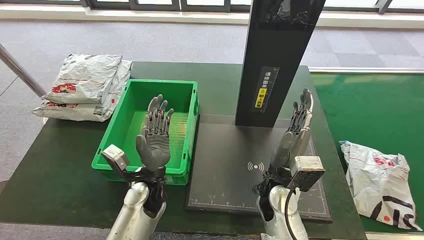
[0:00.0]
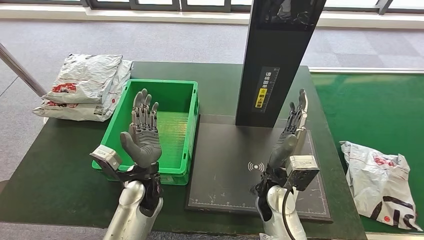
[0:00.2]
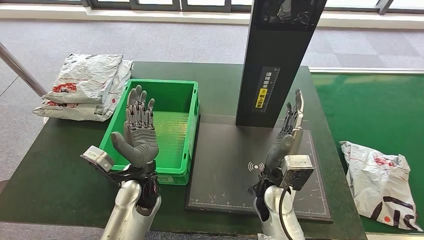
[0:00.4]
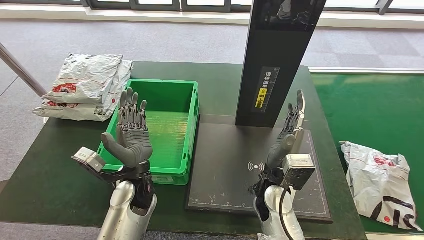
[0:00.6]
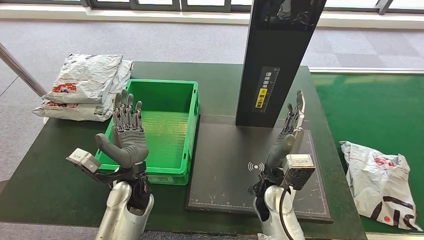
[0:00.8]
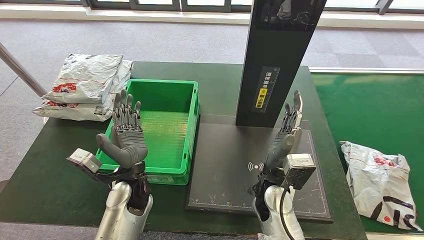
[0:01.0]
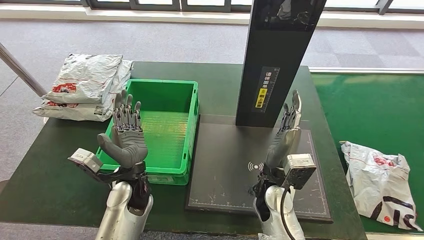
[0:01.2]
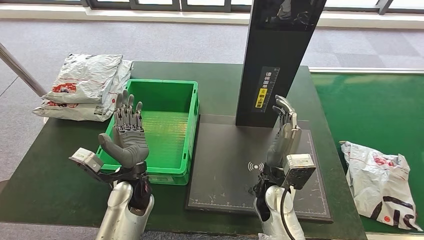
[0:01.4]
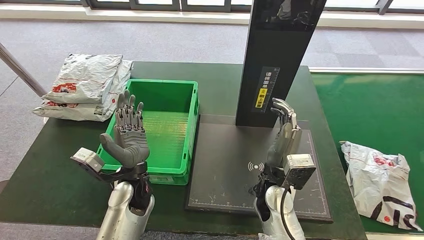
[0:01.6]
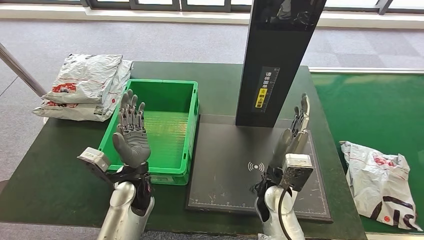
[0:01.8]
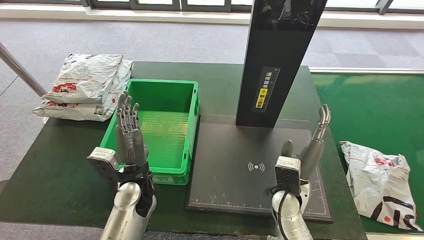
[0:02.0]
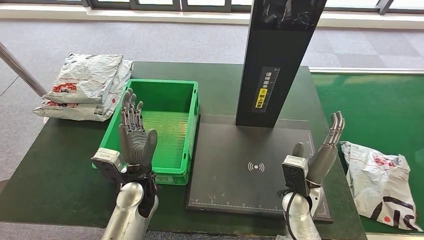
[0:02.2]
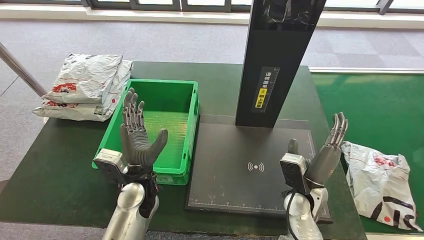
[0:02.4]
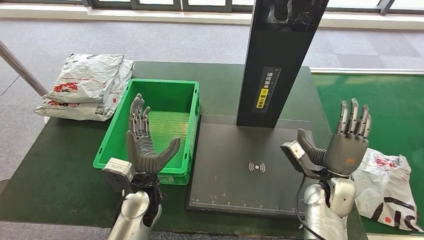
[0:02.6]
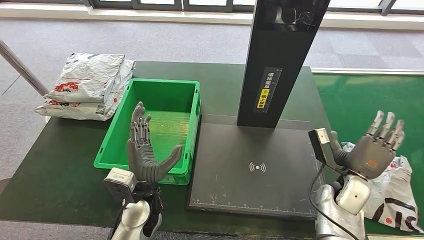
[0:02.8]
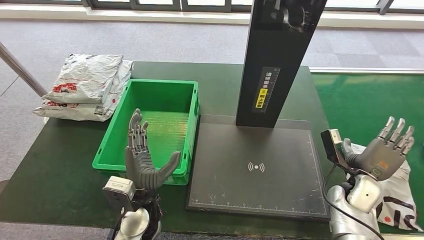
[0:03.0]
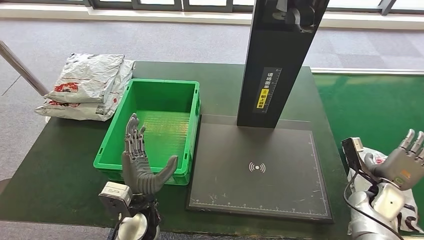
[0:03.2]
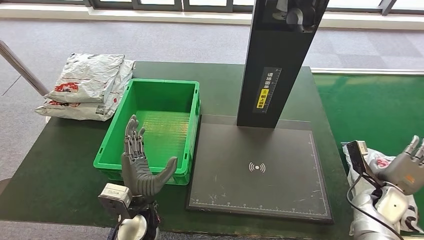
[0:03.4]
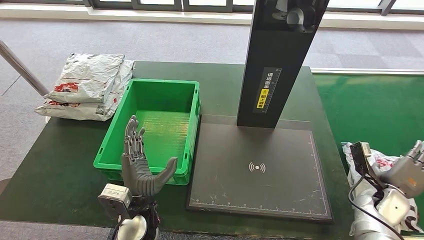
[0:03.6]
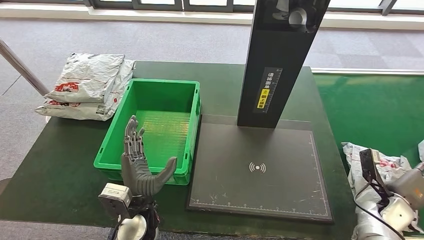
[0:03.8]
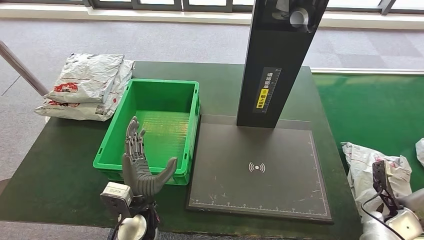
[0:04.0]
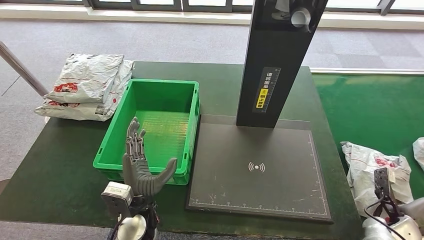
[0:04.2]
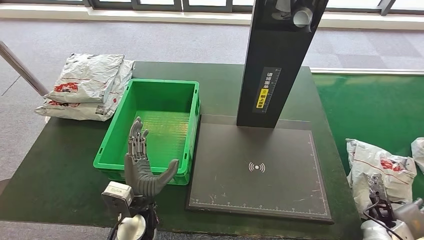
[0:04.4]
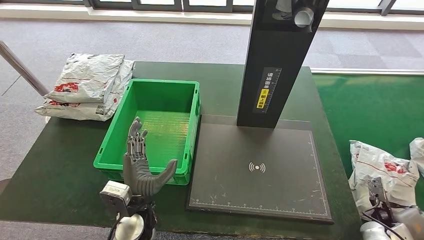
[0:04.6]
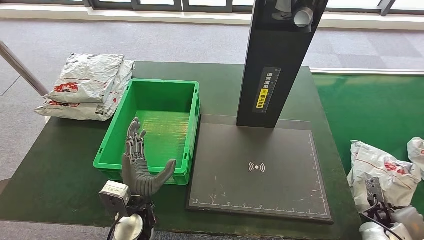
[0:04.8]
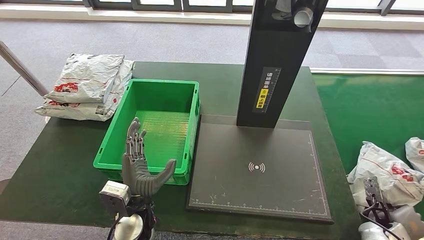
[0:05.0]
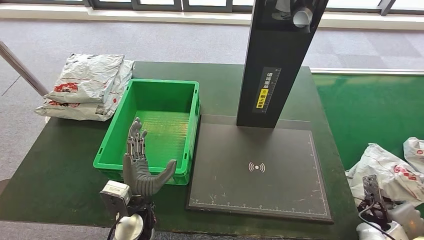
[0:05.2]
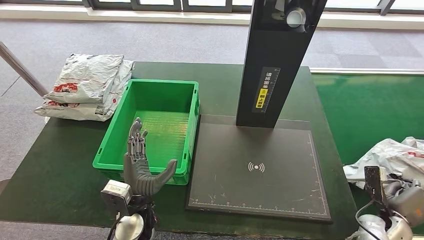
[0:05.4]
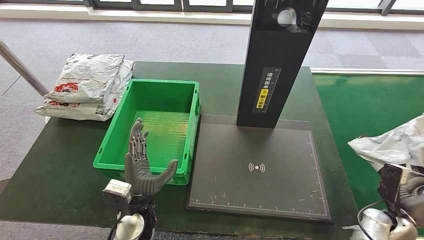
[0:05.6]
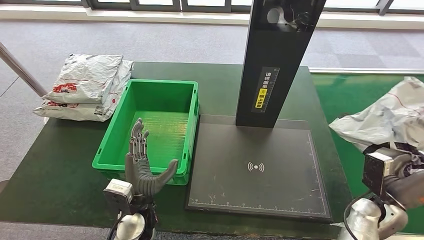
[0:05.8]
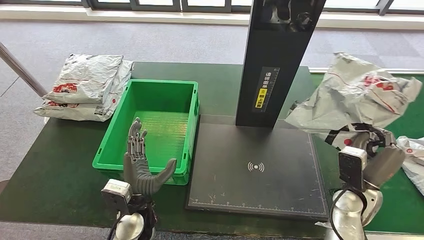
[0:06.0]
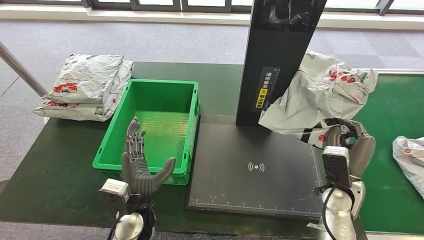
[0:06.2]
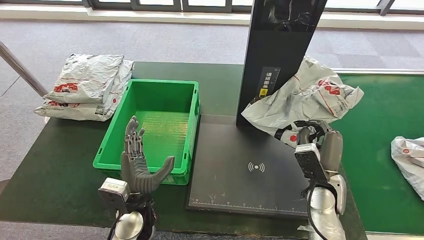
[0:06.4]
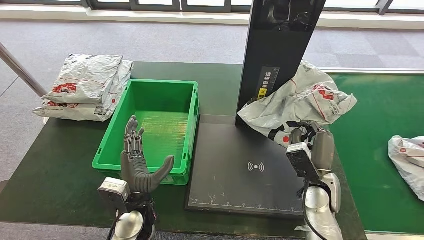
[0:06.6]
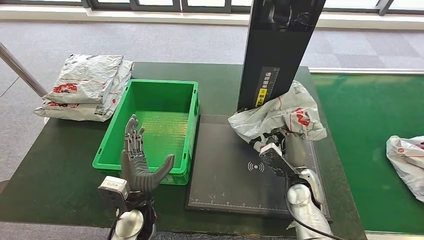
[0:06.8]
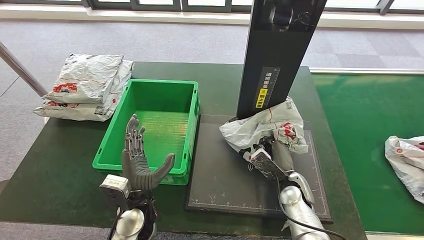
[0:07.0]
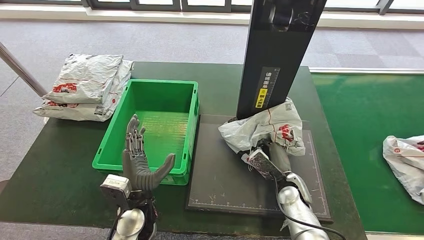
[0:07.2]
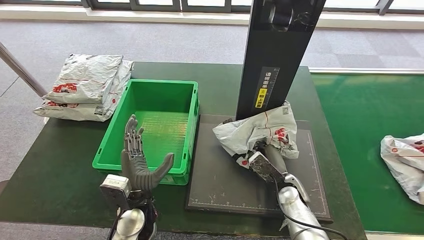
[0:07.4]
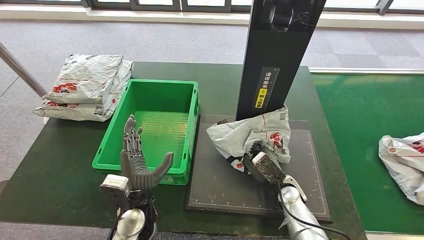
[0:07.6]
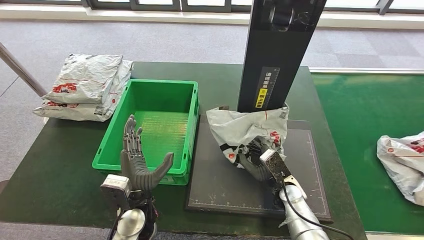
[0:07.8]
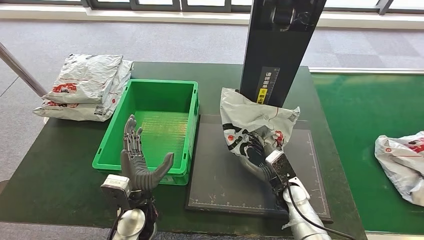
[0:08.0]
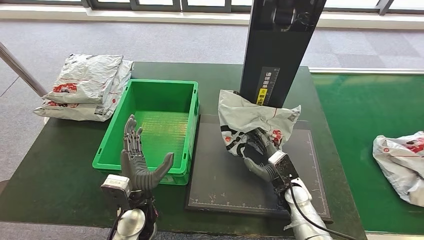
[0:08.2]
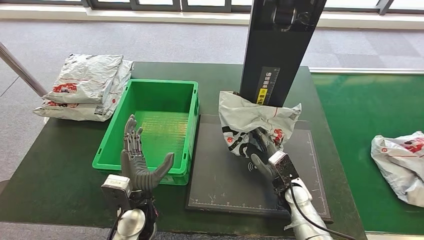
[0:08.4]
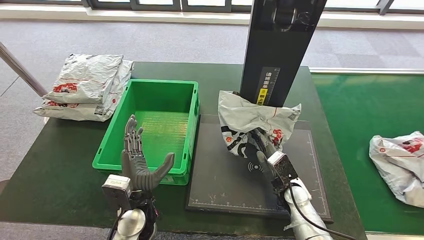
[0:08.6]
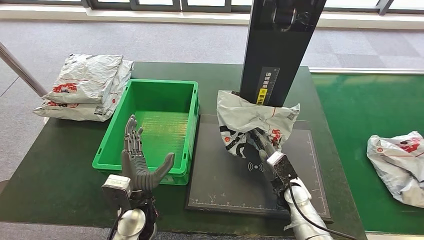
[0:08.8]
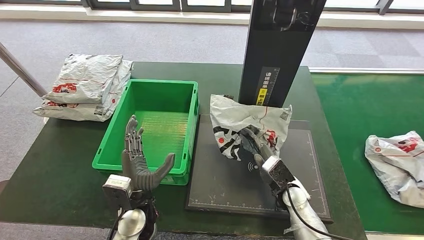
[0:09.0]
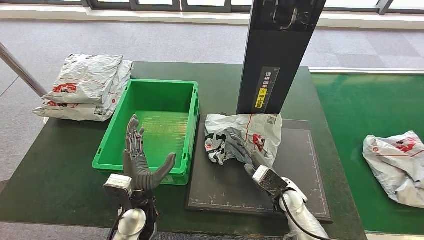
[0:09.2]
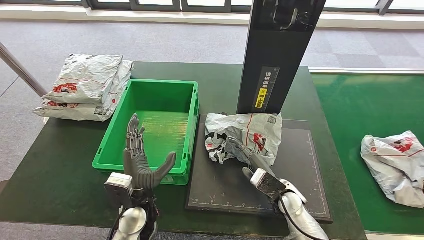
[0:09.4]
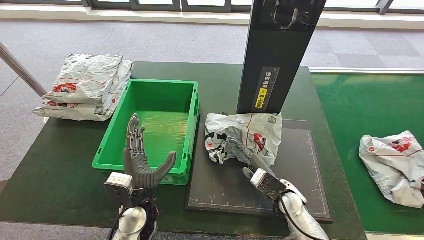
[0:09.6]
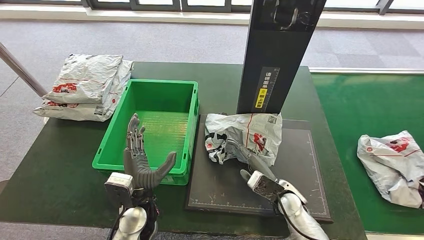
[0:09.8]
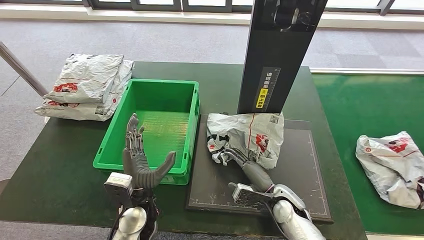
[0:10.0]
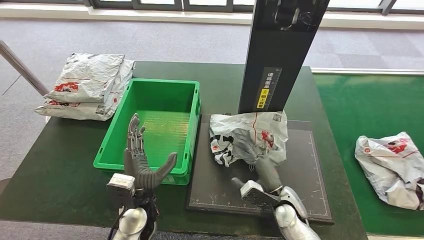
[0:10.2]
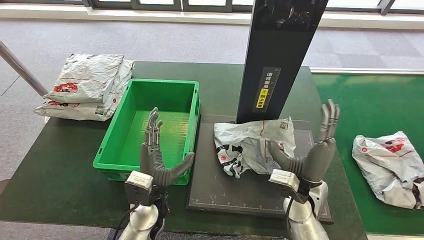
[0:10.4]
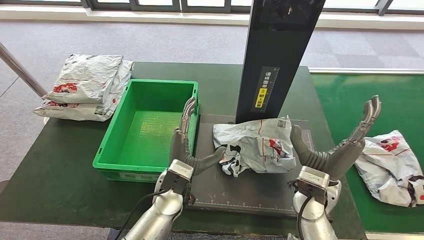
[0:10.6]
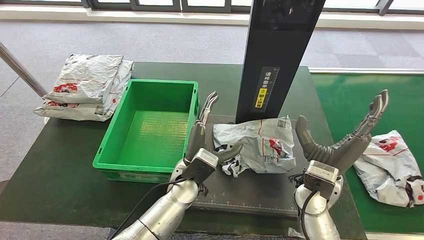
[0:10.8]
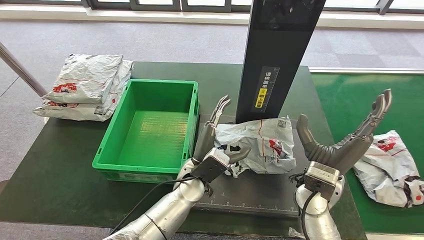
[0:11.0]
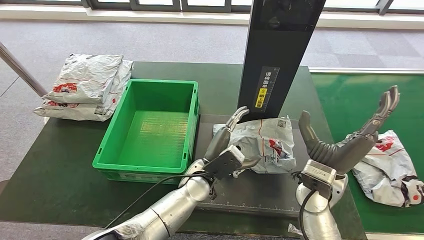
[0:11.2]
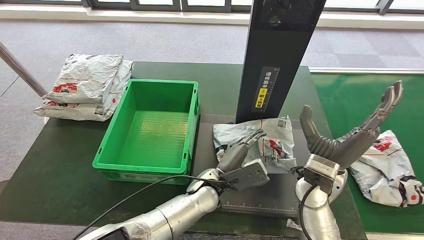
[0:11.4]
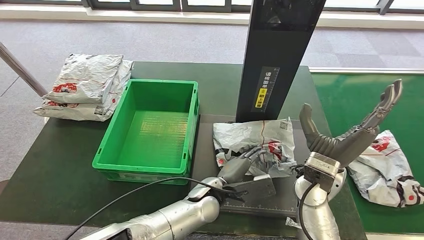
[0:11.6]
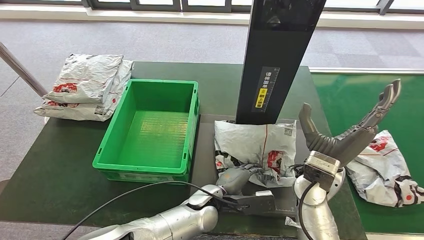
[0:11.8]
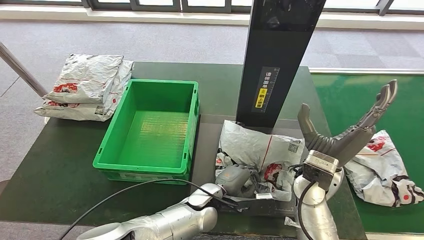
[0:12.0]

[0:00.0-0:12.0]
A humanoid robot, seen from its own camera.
Step, 0:00.0 to 0:06.4: Take the parcel off the conveyor belt.
Step, 0:06.6 to 0:10.4: Place the parcel onto the inbound machine.
0:01.6 to 0:03.0: The right hand is displaced to the right by about 25 cm. The left hand changes place by about 5 cm.
0:03.0 to 0:04.4: The right hand moves to the right, downward and backward, about 15 cm.
0:07.6 to 0:09.0: The hands make only small movements.
0:09.0 to 0:10.4: The right hand is displaced upward by some 5 cm.

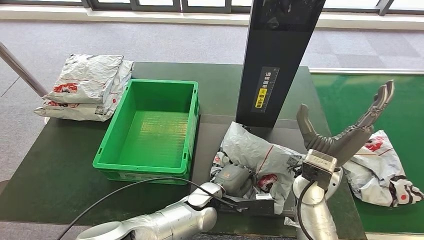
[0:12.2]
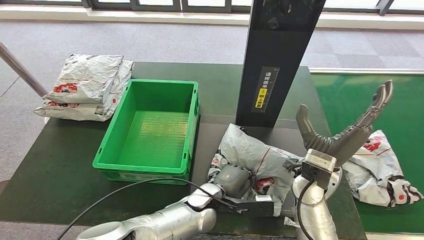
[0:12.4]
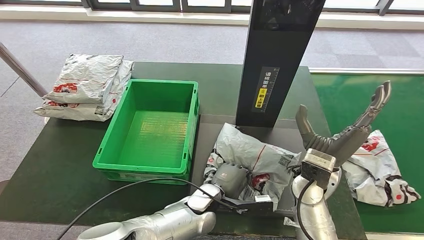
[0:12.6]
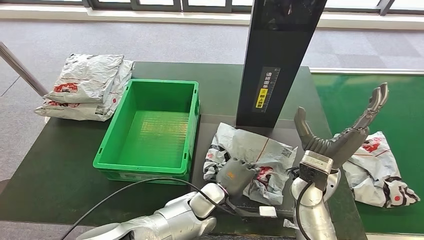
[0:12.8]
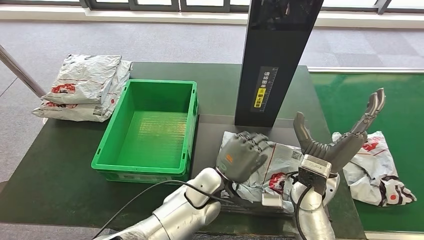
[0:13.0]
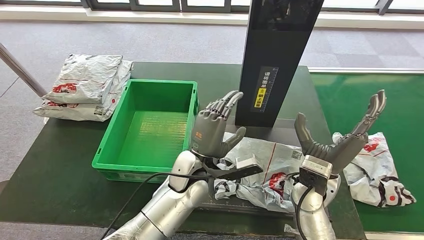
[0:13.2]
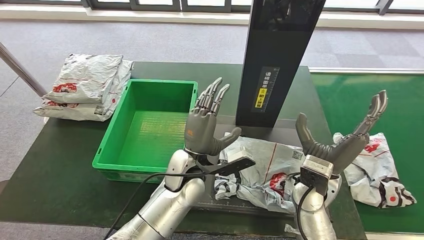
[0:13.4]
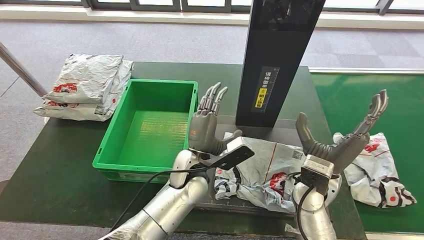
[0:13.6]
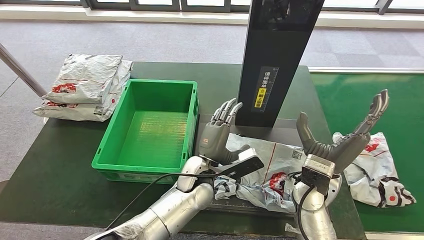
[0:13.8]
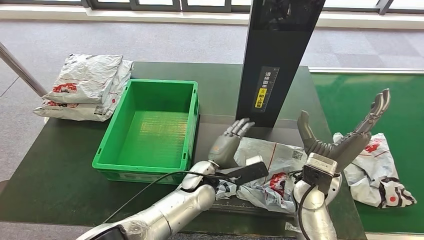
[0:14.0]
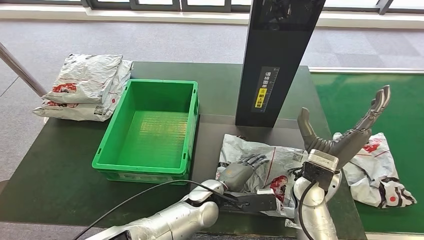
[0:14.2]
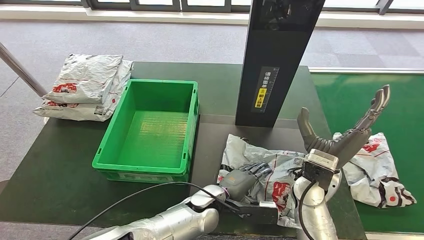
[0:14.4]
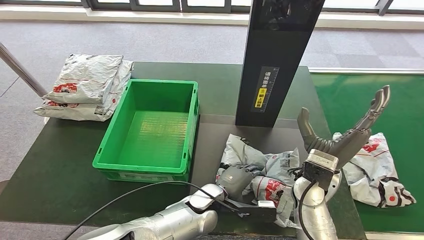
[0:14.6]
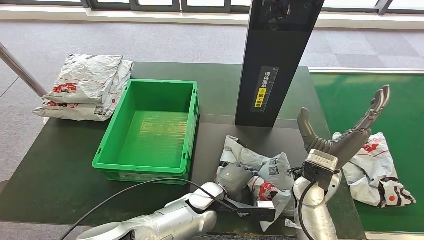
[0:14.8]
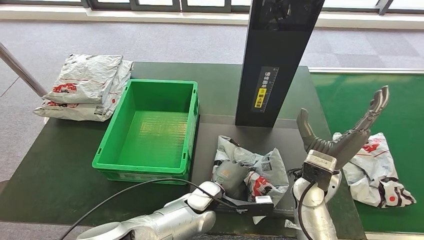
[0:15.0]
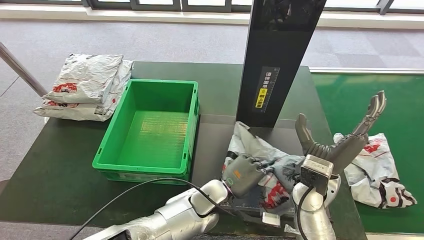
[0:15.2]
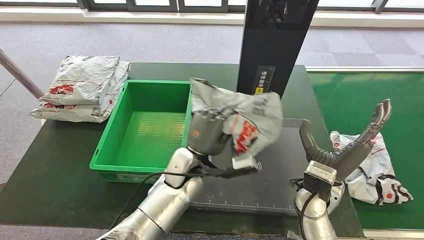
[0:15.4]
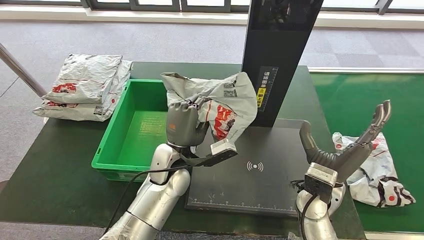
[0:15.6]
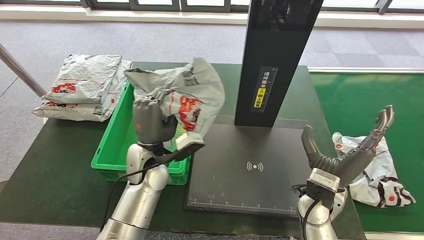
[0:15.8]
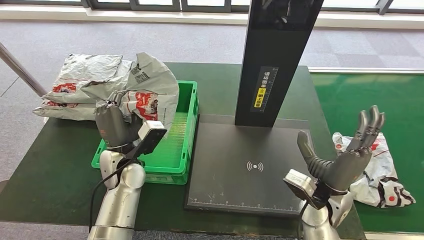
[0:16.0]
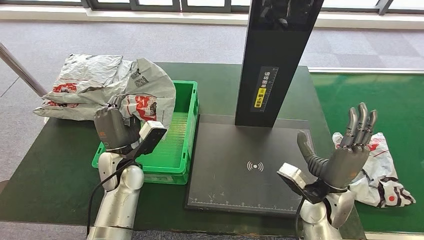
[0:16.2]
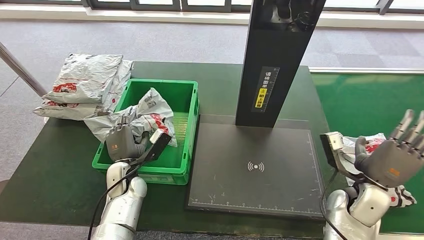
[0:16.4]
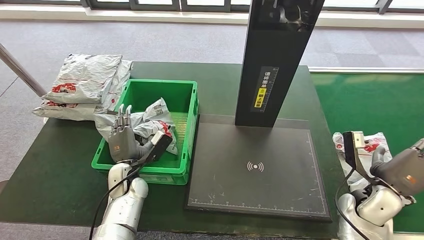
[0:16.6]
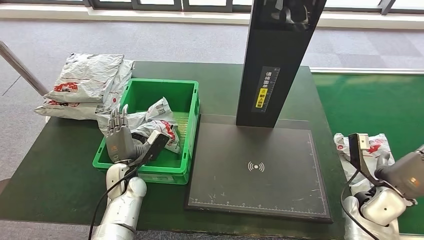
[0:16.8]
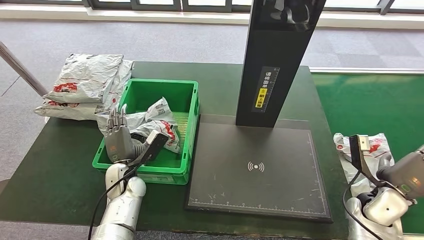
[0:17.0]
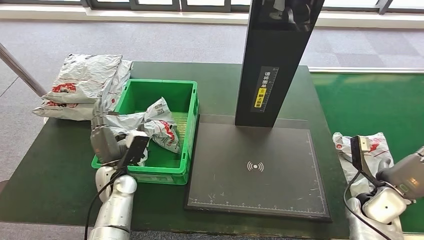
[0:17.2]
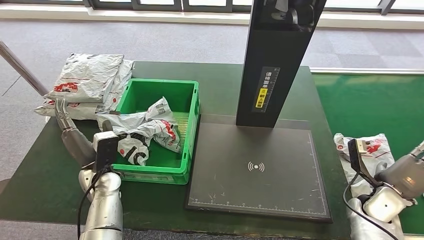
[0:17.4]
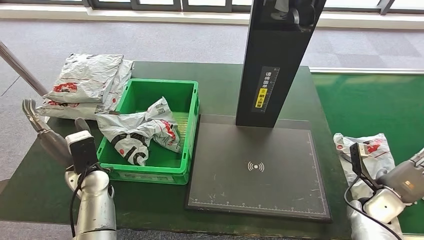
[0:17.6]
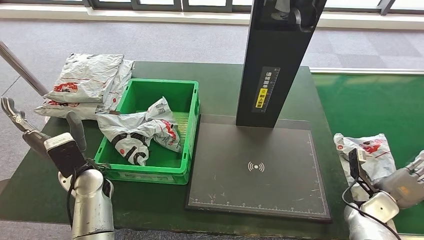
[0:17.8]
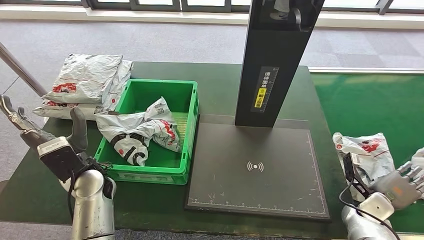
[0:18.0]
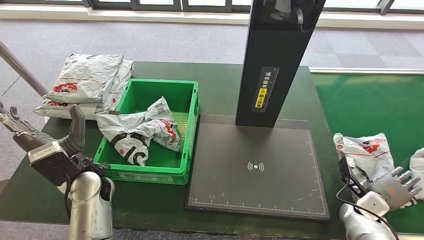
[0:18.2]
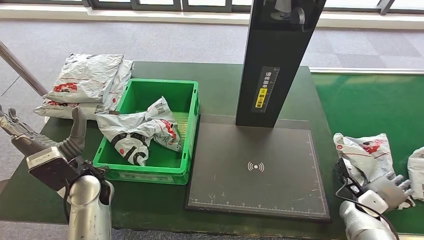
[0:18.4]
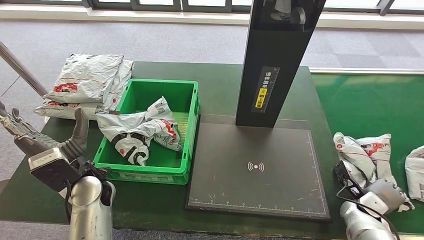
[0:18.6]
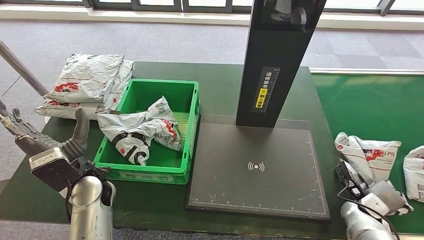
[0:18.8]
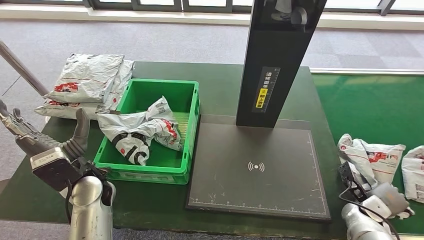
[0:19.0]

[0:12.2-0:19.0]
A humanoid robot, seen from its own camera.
Step, 0:12.2 to 0:15.8: Pick up the parcel from the inbound machine.
Step, 0:16.0 to 0:17.8: Put the parcel inside the courier box.
0:12.2 to 0:13.6: The left hand is displaced upward by about 10 cm.
0:13.6 to 0:15.0: The left hand travels downward by approximately 10 cm.
0:17.6 to 0:19.0: The left hand shifts by approximately 5 cm.
